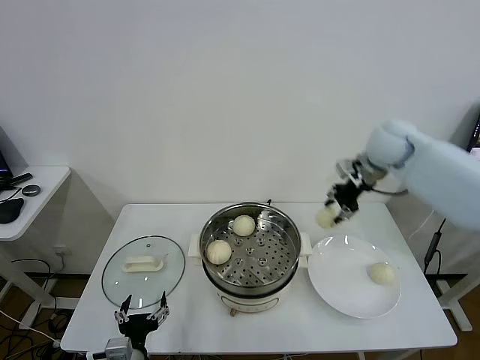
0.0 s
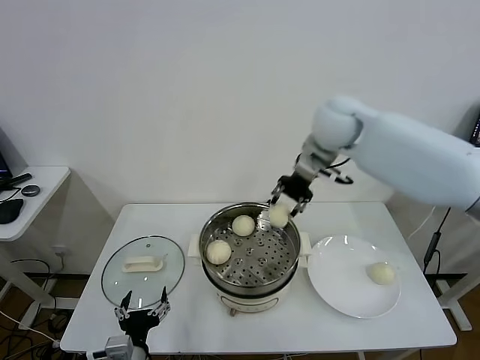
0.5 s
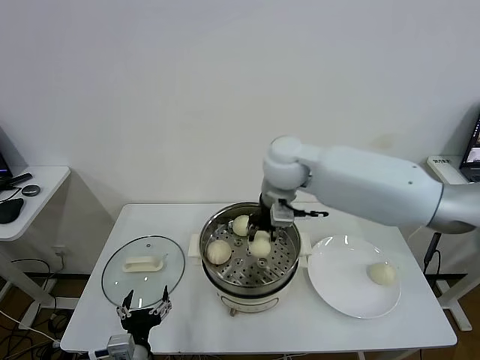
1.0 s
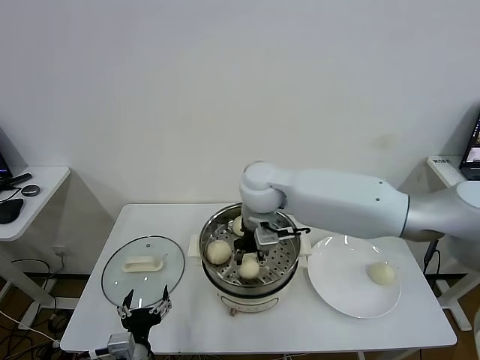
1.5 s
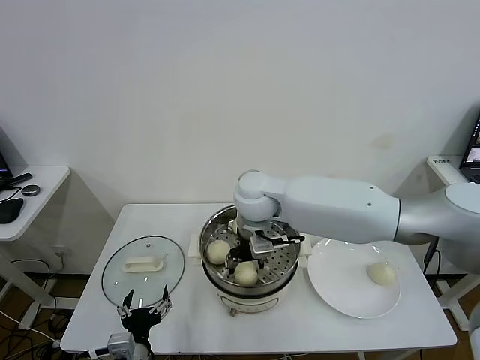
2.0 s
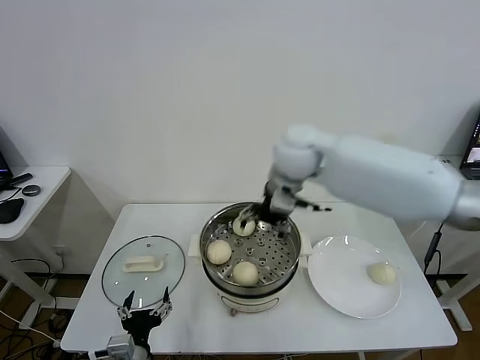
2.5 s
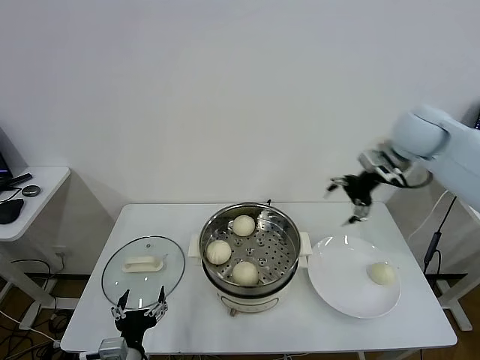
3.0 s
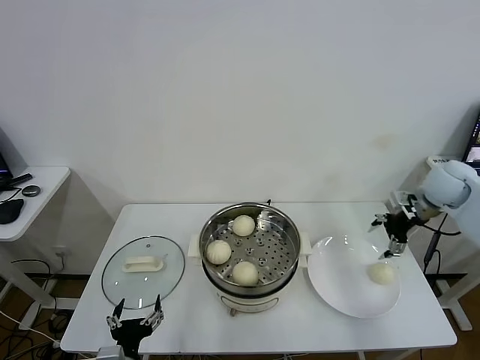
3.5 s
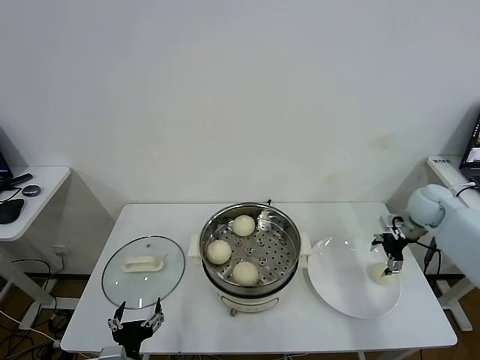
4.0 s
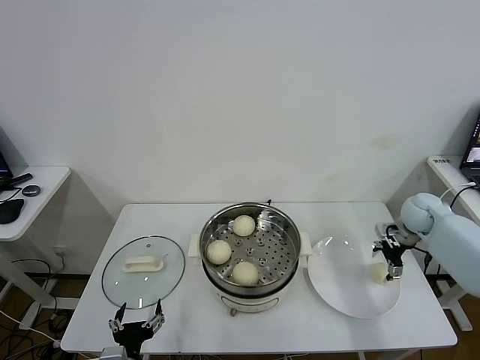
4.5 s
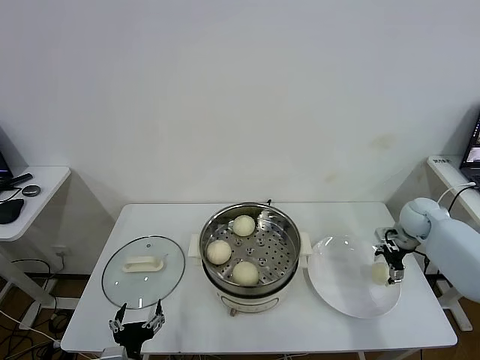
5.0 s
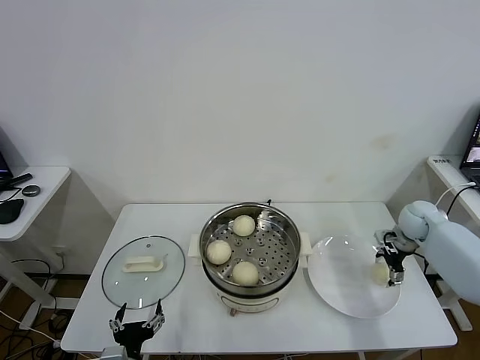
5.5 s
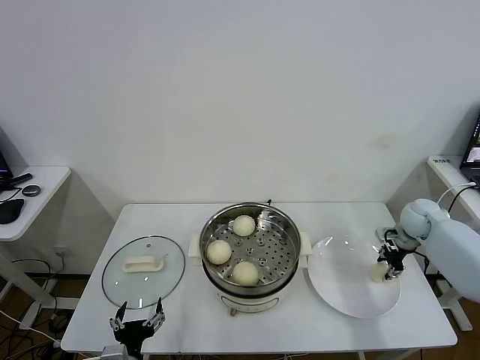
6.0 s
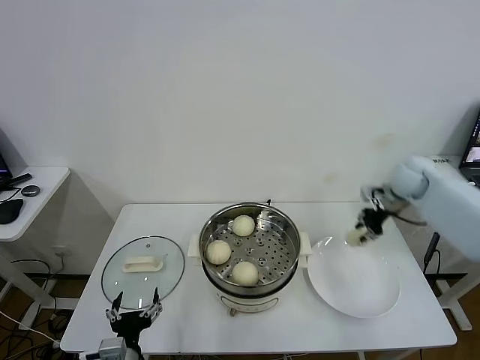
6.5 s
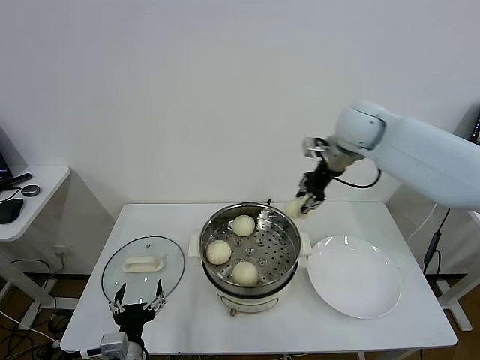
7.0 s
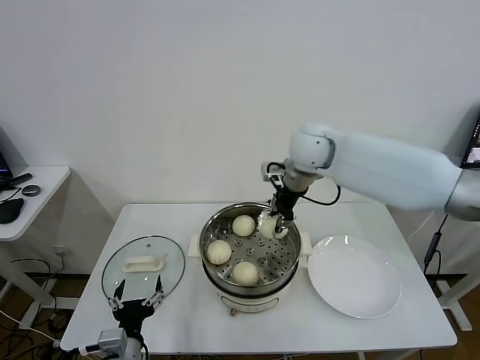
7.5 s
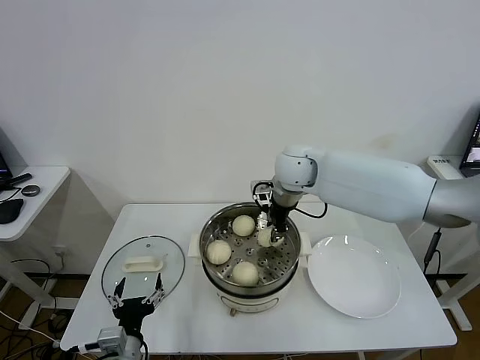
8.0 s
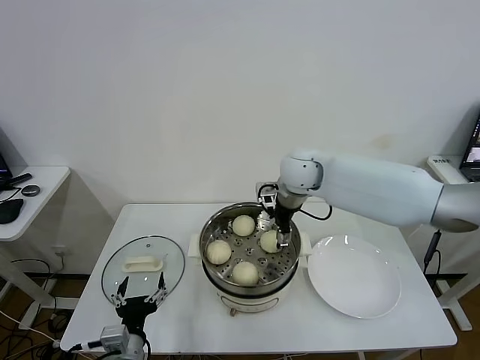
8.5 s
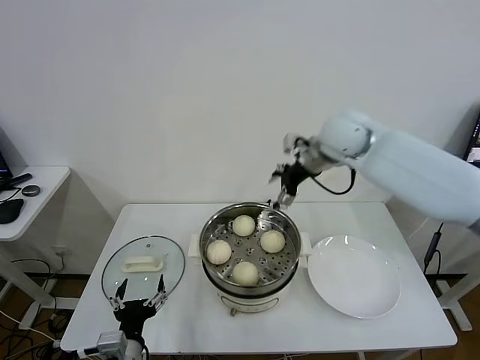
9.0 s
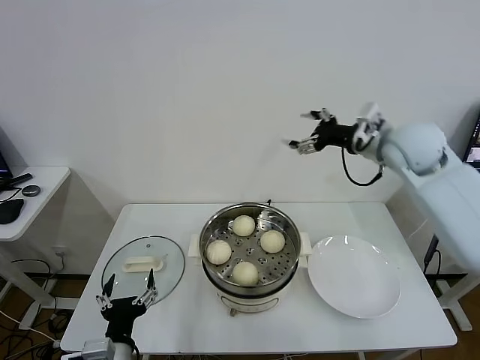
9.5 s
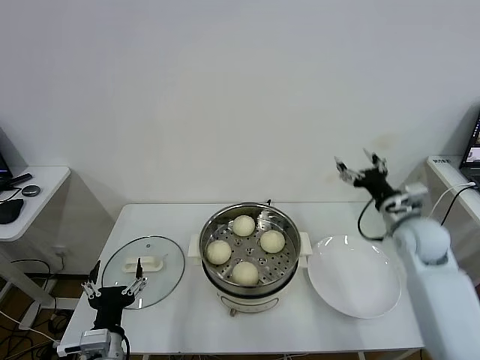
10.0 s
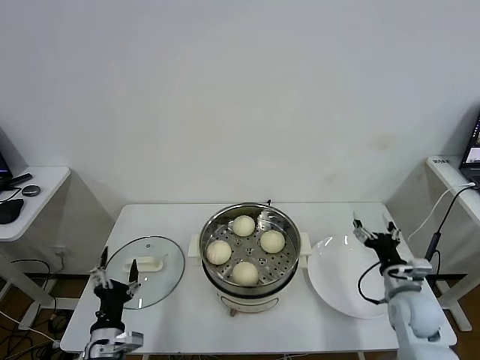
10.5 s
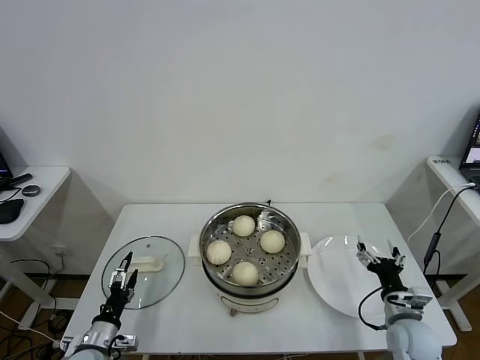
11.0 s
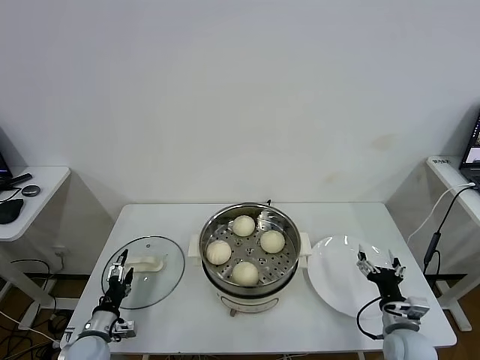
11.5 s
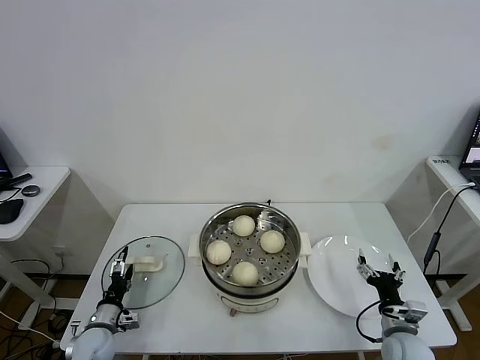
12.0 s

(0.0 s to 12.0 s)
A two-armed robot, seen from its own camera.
Task of the whole recording: take steamed baozi put them in steamer.
Step, 0.0 s - 2.0 s: Place the baozi on the steamer with right gripper.
Step, 2.5 s - 5.5 s: Grasp the baozi in the plate with right gripper.
Step, 6.0 s - 8.5 s: Place the baozi on the steamer with right gripper.
0.0 s - 2.0 s: The right gripper moves to the left, some 30 cm.
2.0 s - 4.0 s: The right gripper shifts roughly 40 cm to the right, and opens up.
4.0 s - 6.0 s: The right gripper moves downward, some 5 cm, and closes up.
6.0 s - 8.0 s: The right gripper goes some 40 cm to the left and upward, and closes its fingers.
8.0 s - 10.0 s: The right gripper shifts about 30 cm to the right and backward, and opens its fingers.
10.0 s - 12.0 s: The left gripper travels downward, to the left and forward by some 25 cm. The right gripper moves downward and backward, about 30 cm.

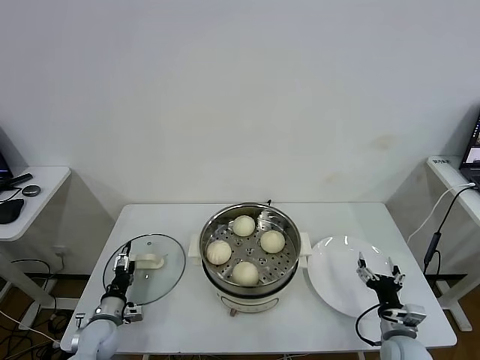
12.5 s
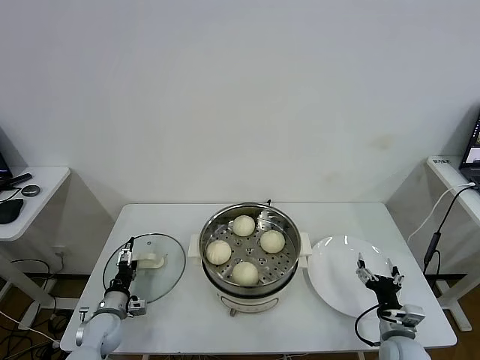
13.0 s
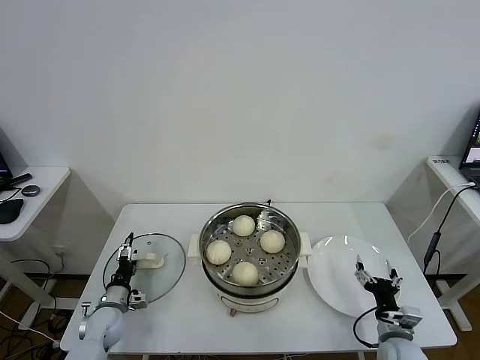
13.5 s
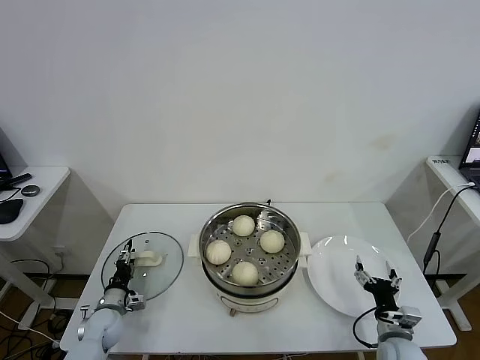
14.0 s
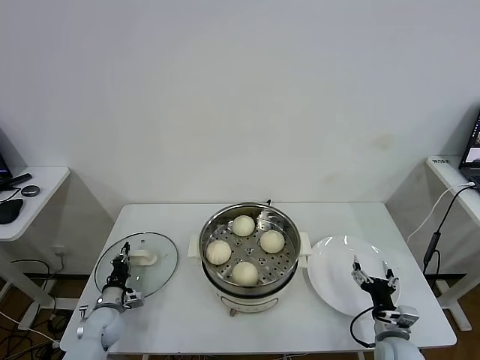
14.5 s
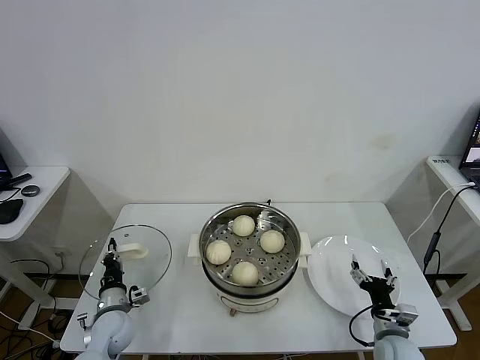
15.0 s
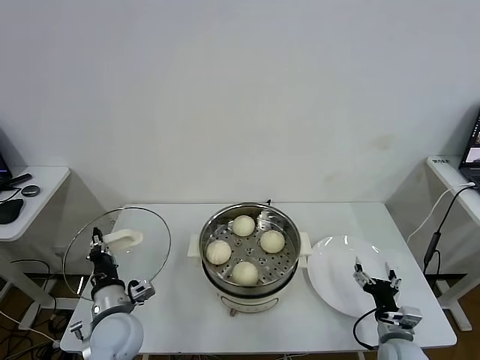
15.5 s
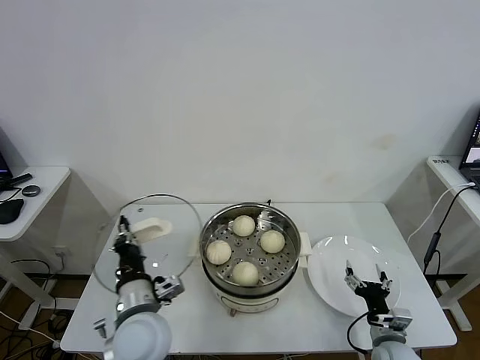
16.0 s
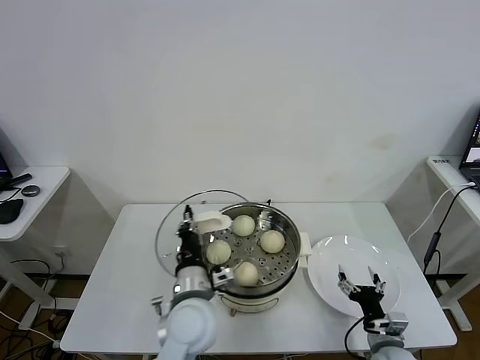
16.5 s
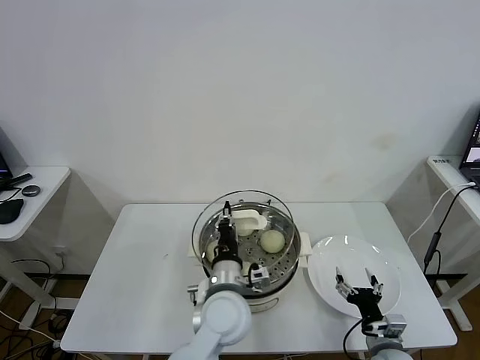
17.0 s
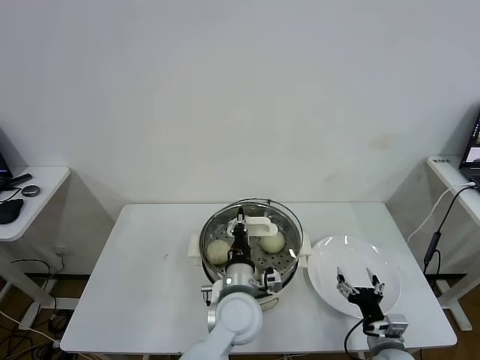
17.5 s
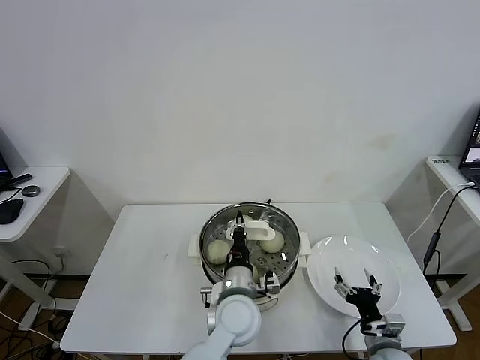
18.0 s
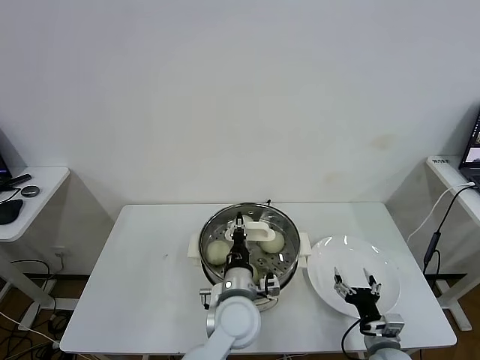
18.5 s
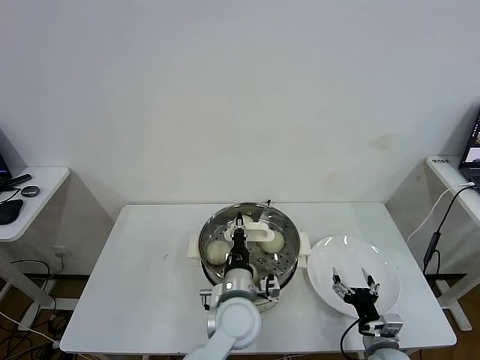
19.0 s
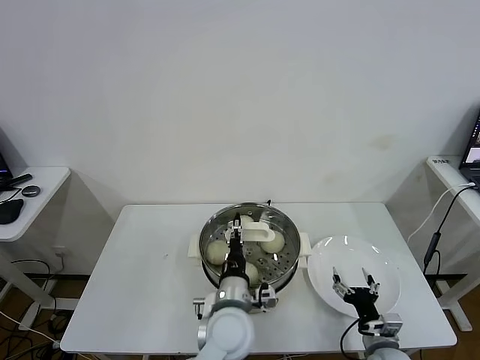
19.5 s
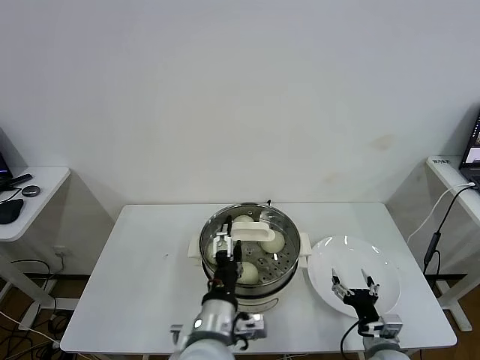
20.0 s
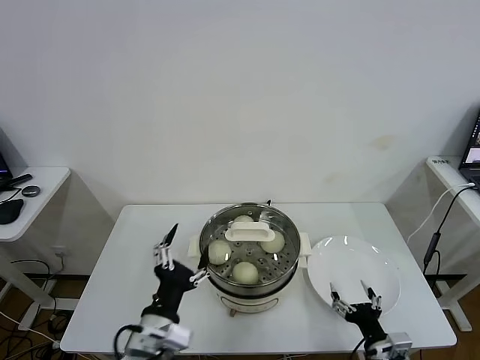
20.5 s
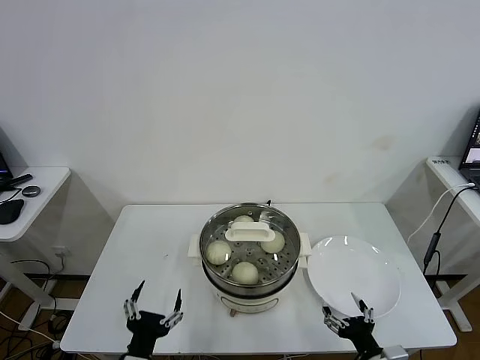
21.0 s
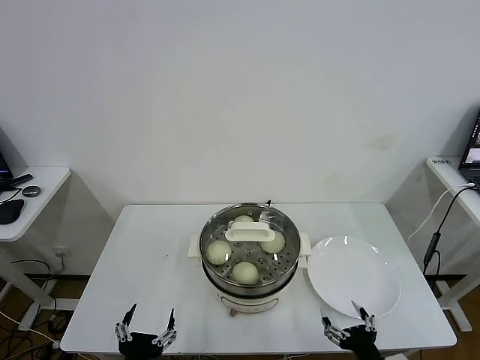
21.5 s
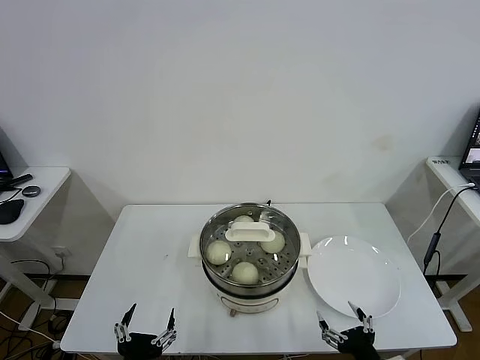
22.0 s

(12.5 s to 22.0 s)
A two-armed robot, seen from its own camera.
Task of the whole recording: take steamed baozi put them in steamer.
Step, 12.5 s - 14.5 s: Grasp the pot lid with left gripper.
Step, 15.0 s - 19.5 s: Place the pot lid on the steamer with left gripper.
12.5 s - 14.5 s: The left gripper closes up.
14.5 s - 16.5 s: The left gripper heads to the right and upward, covering about 35 cm.
16.5 s - 18.0 s: The left gripper travels to the right by roughly 10 cm.
18.0 s - 20.0 s: The left gripper moves backward, about 10 cm, and opens its fingers.
20.0 s - 22.0 s: The right gripper moves backward and upward, about 10 cm. The left gripper moves to the left and backward, approximately 20 cm.
